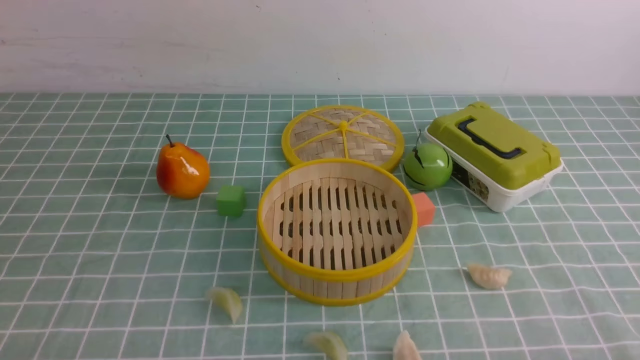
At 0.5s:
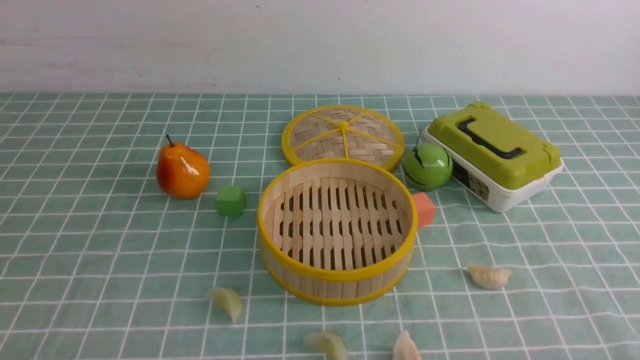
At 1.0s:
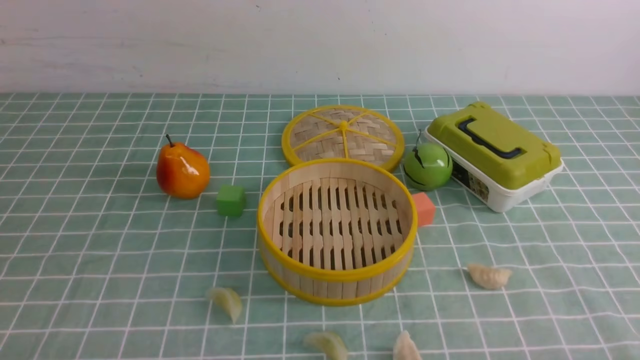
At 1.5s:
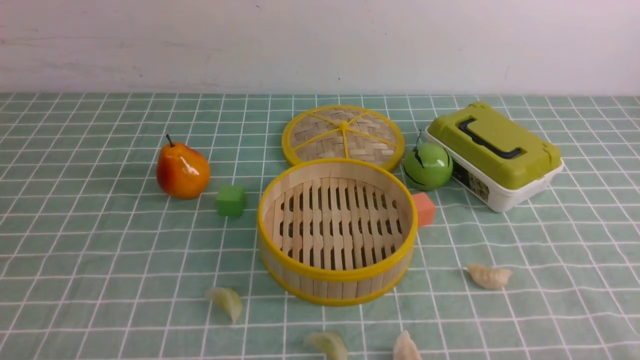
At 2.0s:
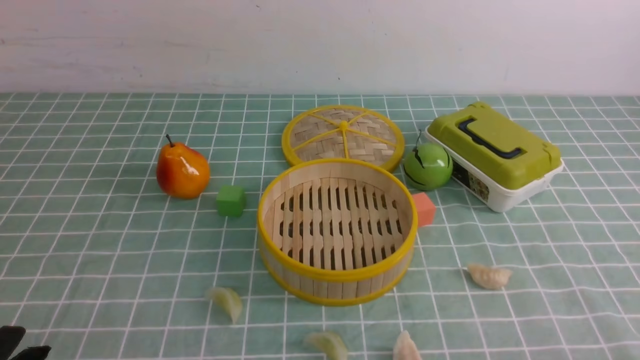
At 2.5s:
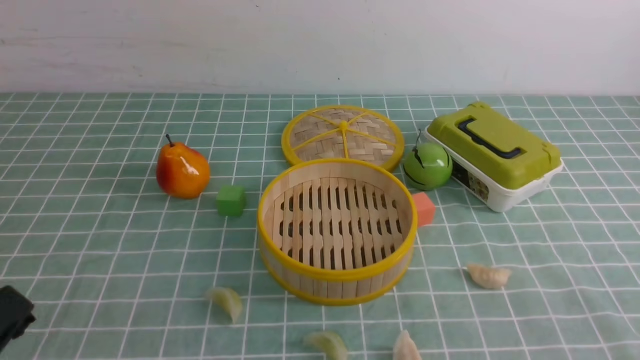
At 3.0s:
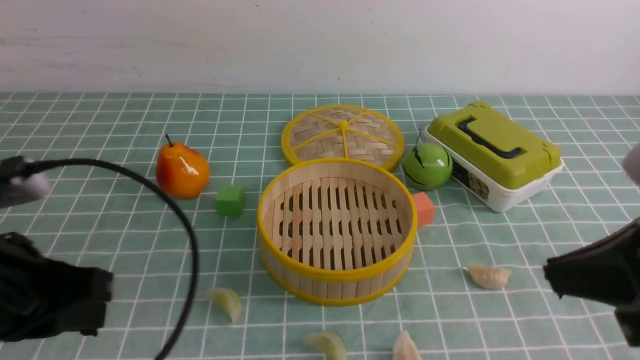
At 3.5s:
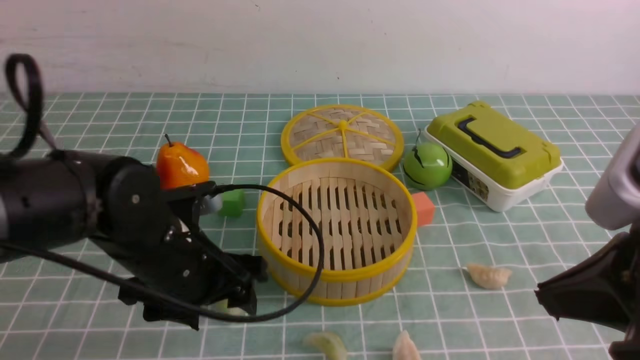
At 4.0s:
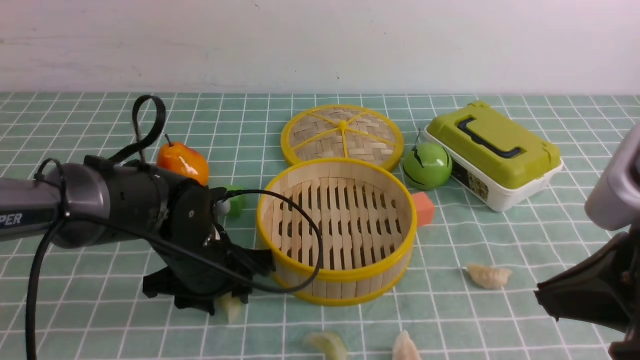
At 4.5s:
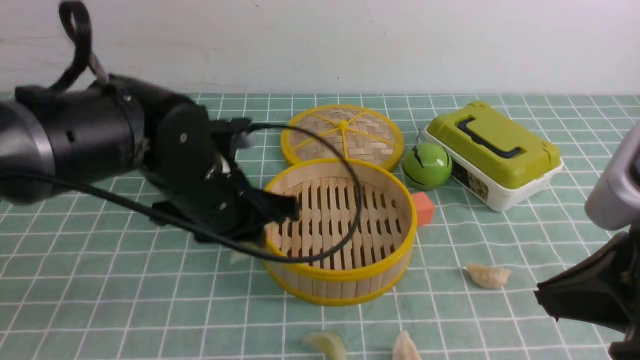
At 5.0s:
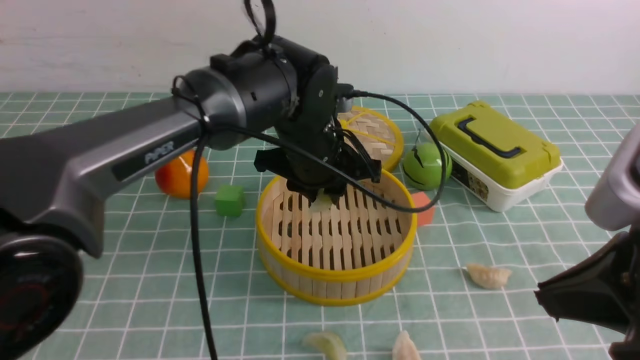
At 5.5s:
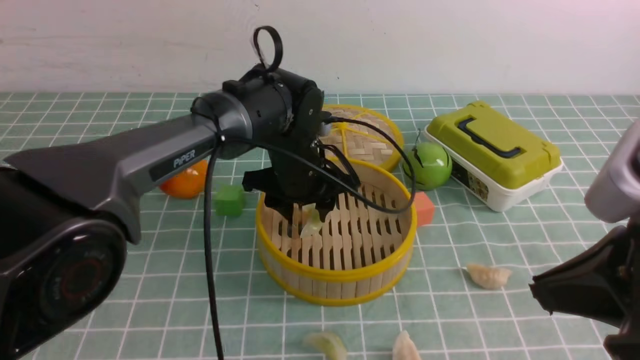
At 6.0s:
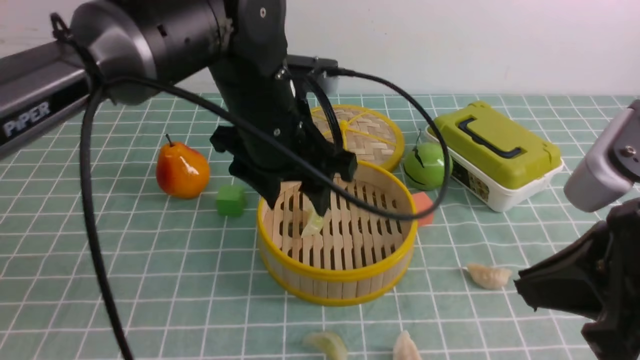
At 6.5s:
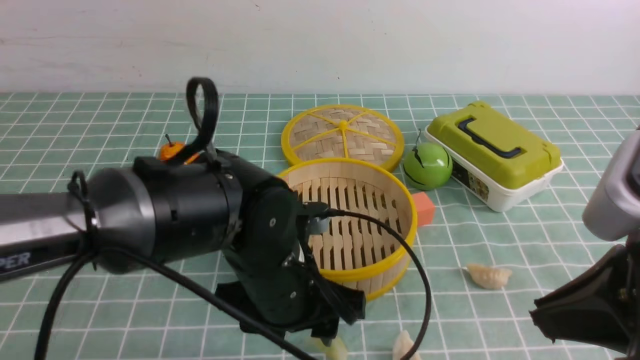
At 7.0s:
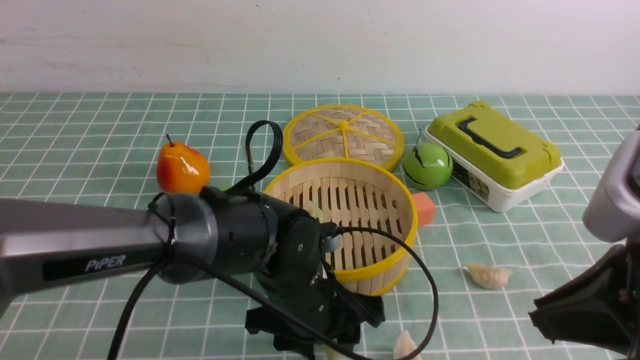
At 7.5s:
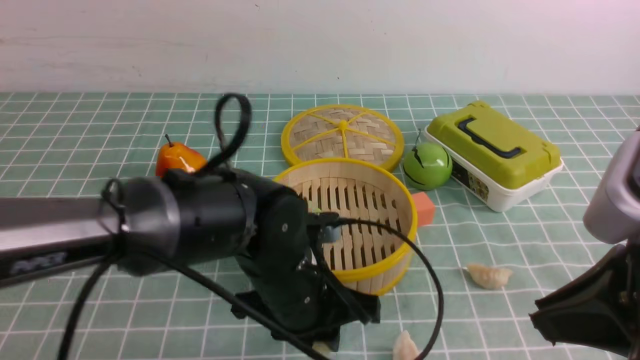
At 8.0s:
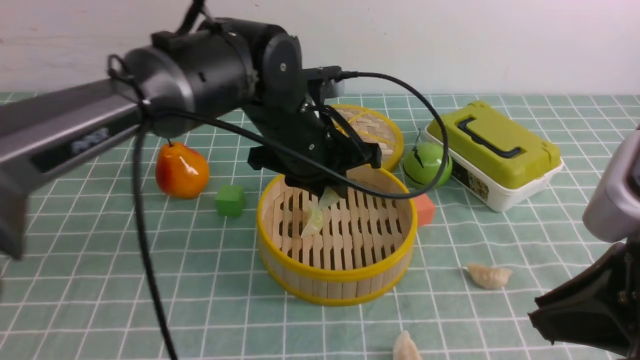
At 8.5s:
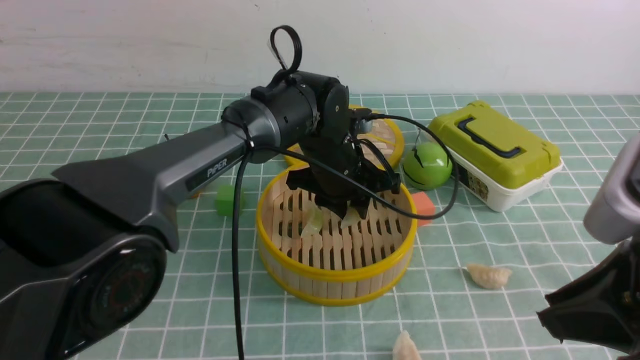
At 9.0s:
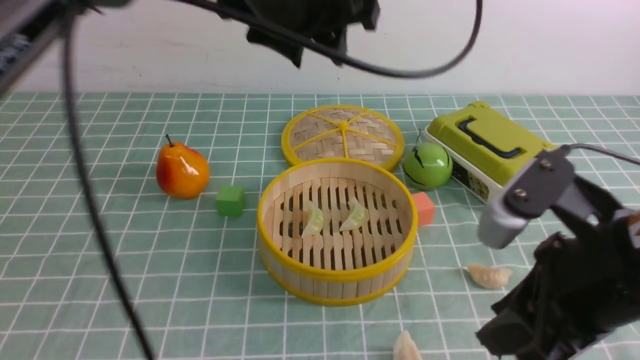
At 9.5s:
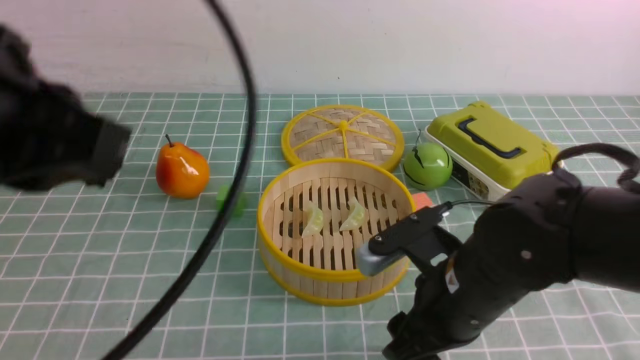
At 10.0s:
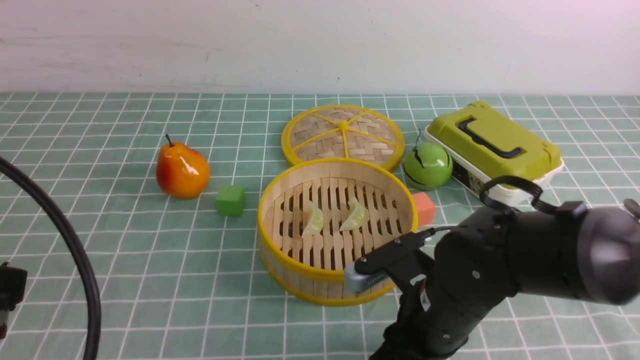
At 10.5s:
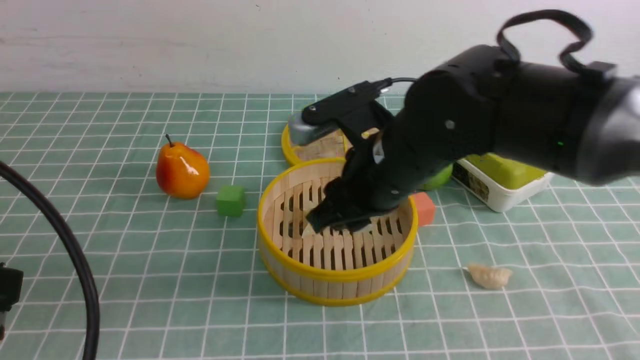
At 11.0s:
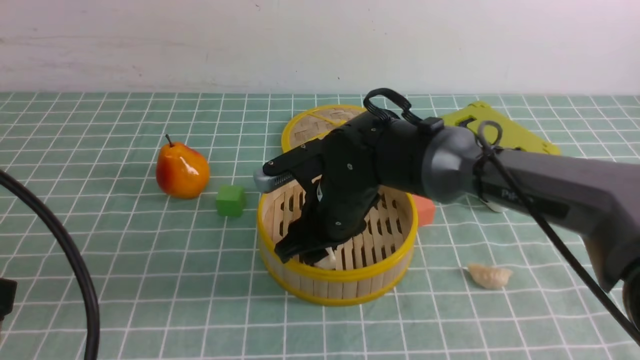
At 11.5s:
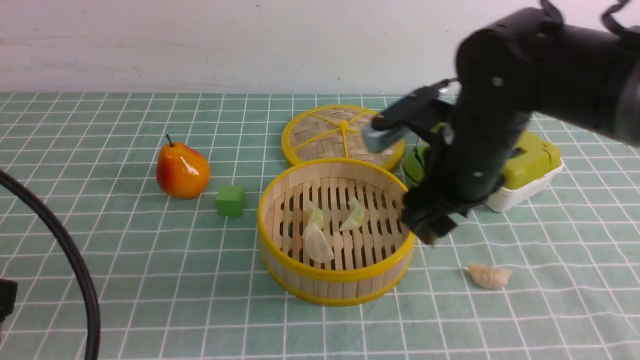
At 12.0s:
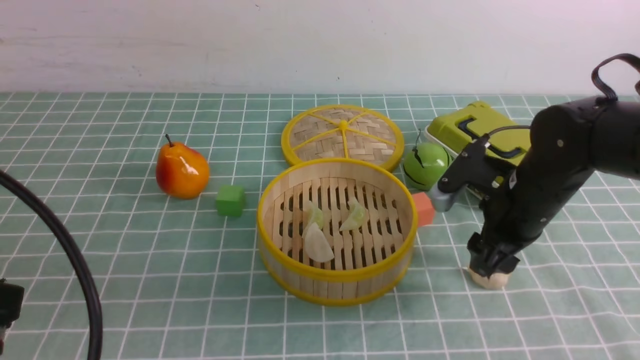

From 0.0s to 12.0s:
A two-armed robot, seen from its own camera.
Task of the whole recording: put the dumplings into the steamer on the table with the blue tablecloth.
Step, from 0.0s to 4.0s: use the left arm to grab a dumpling.
Step, from 4.5s to 5.5s: use the left arm to put the dumpling into the steamer.
Step, from 6.0s to 7.0s: use the left arm to grab a dumpling.
Step, from 7.5s to 8.5s: use the left arm to put the dumpling into the steamer.
Step, from 9.0s to 9.5s: use the right arm to grab a dumpling.
Step, from 10.0s to 11.0s: use the right arm to put the dumpling into the steamer.
From 2.0s to 4.0s: The right gripper moves upward, forward and to the left, roughly 20 cm, and closes up, while the left gripper goes some 30 cm forward and to the right.
From 4.0s to 6.0s: The left gripper heads upward and to the right, covering some 15 cm.
From 6.0s to 8.0s: The left gripper goes downward and returns, roughly 15 cm each way, and closes its fingers.
From 8.0s to 10.0s: The left gripper moves backward and to the left, approximately 35 cm, and closes its fingers. The right gripper goes about 25 cm downward, to the left and forward, and opens.
From 10.0s to 12.0s: The right gripper goes approximately 15 cm to the right and forward.

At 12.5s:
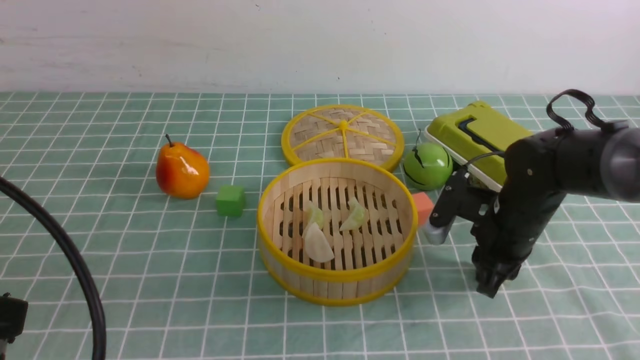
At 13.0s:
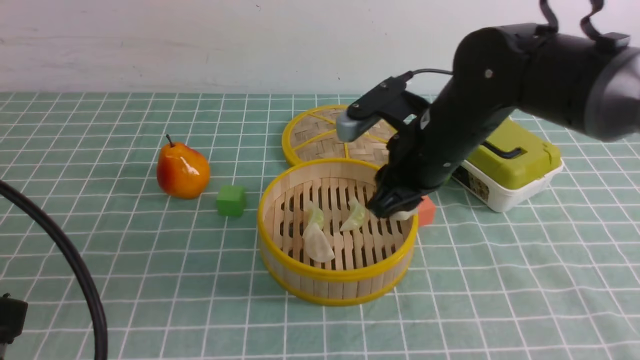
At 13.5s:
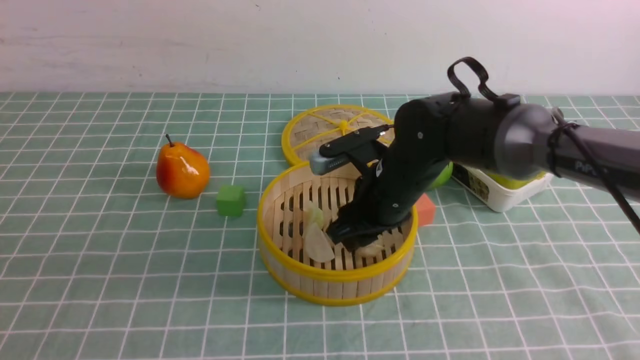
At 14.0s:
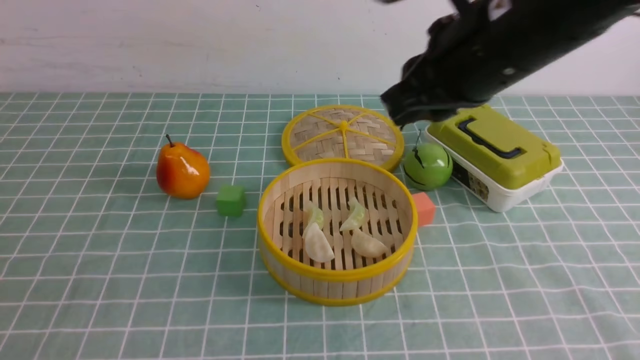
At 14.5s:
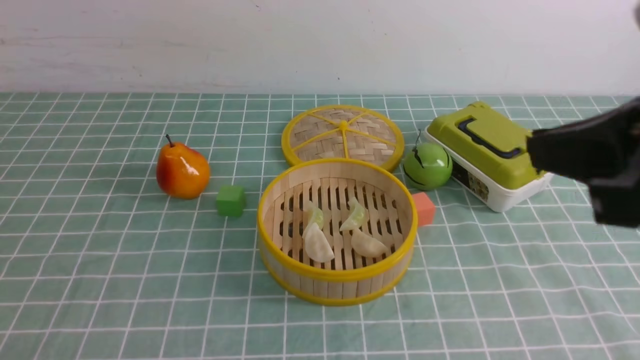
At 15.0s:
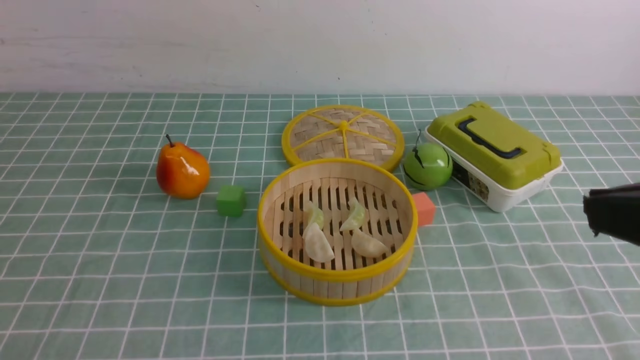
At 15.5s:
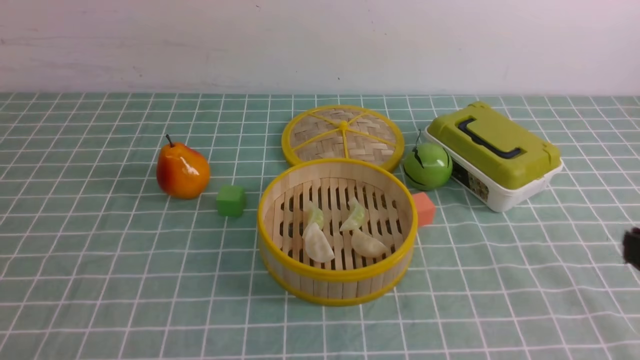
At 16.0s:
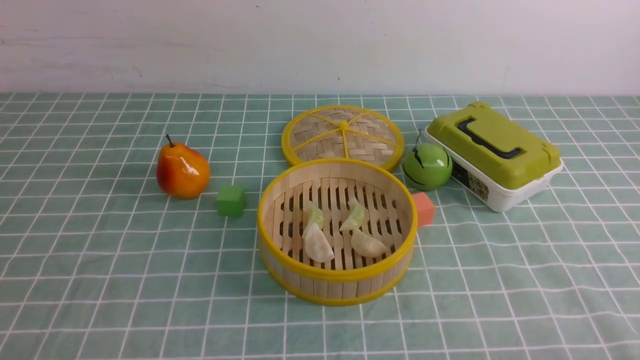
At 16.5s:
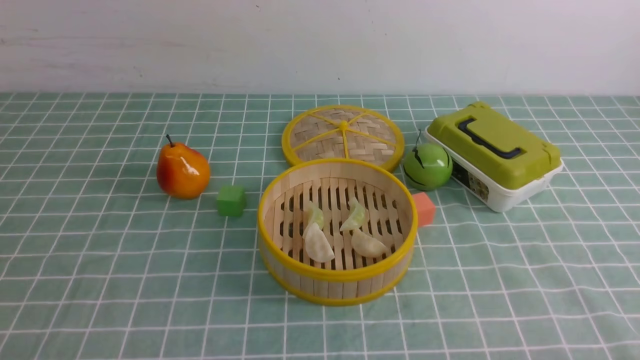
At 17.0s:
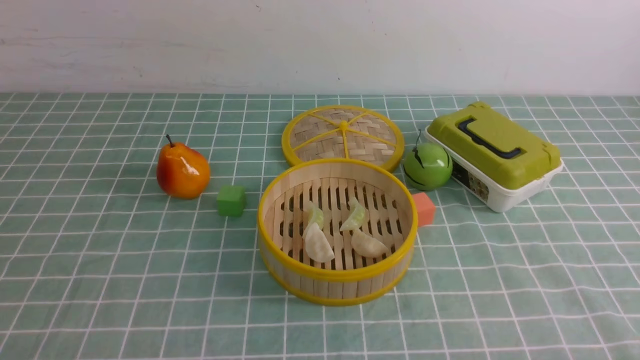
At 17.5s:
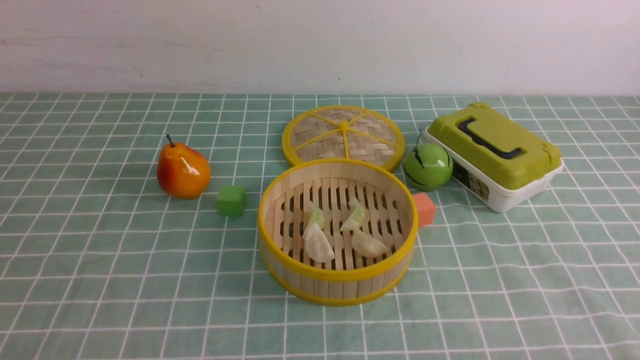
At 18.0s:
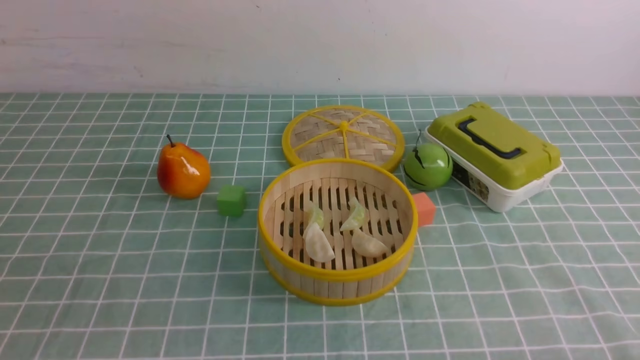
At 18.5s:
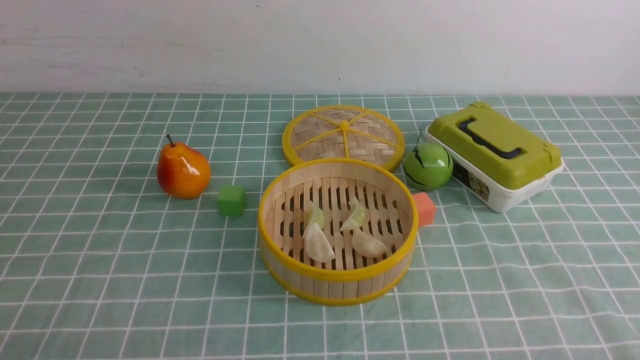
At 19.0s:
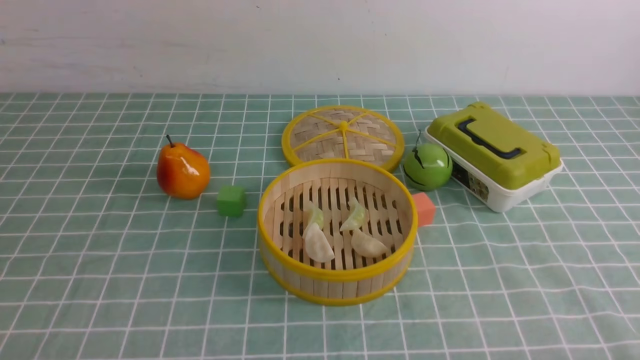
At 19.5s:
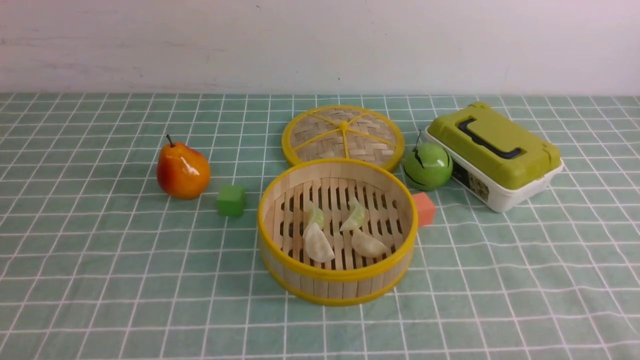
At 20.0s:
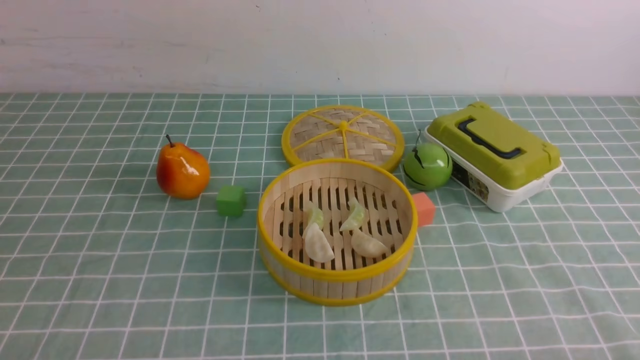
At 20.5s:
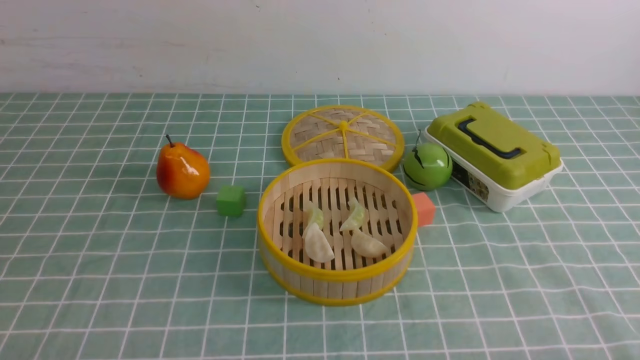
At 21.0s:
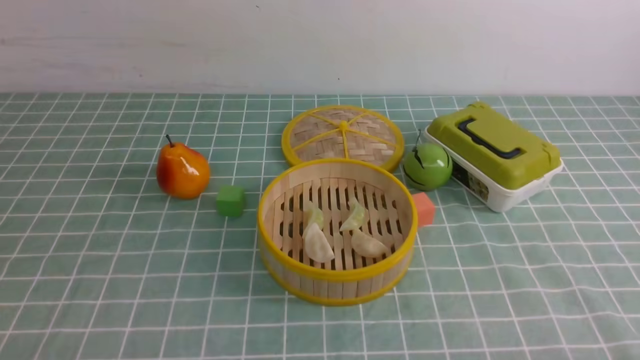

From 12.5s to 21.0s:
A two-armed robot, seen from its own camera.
Task of the whole recording: put the dumplings into the steamer on the table with the blue tablecloth.
Step, from 12.5s to 13.5s: use the right arm to put the dumpling into the steamer.
From 12.5s to 14.5s: The right gripper travels upward and backward by roughly 30 cm, and closes up, while the left gripper moves backward and to the left, some 10 cm.
From 14.5s to 16.5s: The right gripper is displaced downward, to the right and backward by about 30 cm.
From 19.0s to 21.0s: Neither gripper changes place.
